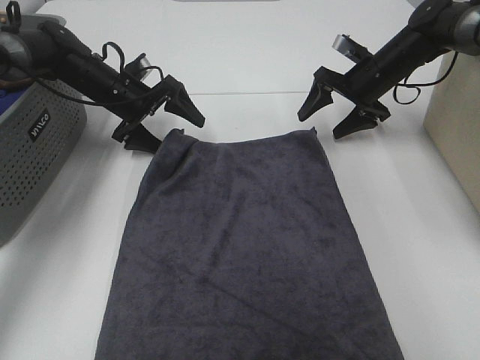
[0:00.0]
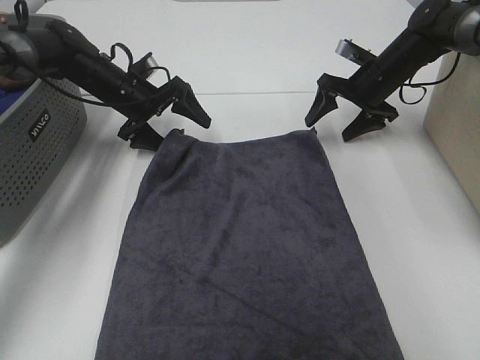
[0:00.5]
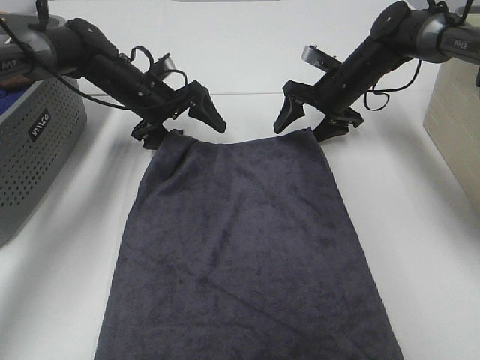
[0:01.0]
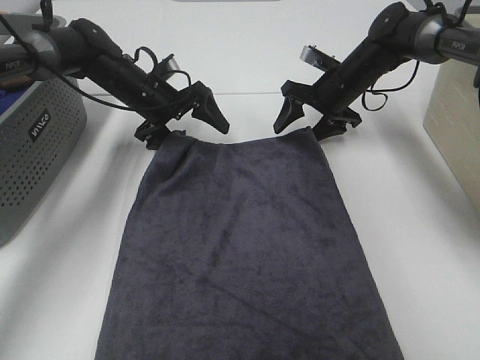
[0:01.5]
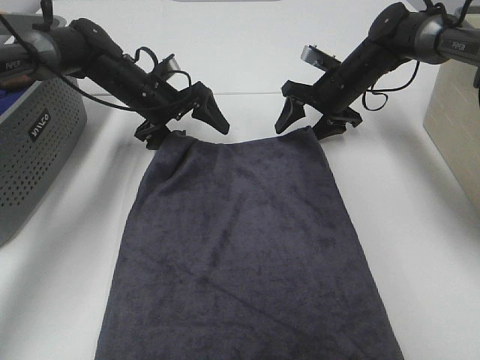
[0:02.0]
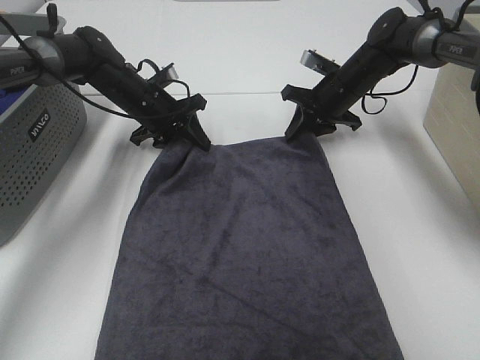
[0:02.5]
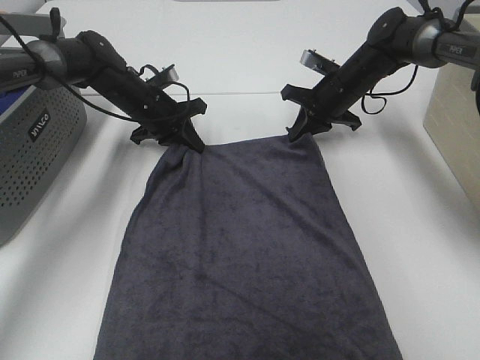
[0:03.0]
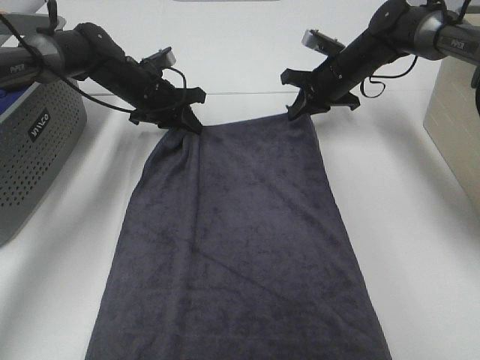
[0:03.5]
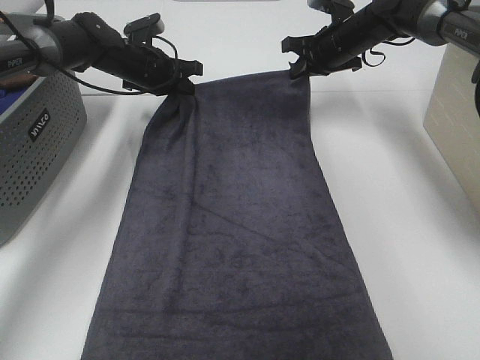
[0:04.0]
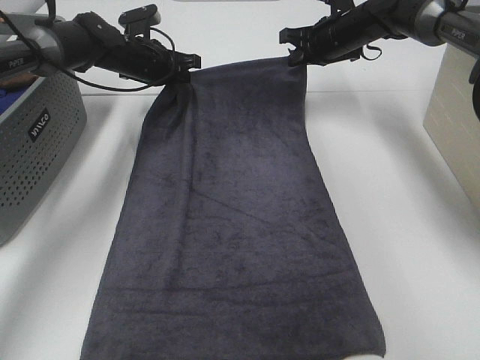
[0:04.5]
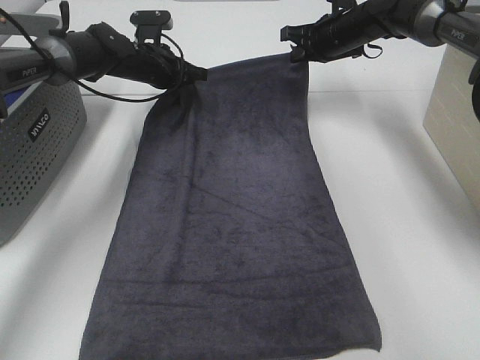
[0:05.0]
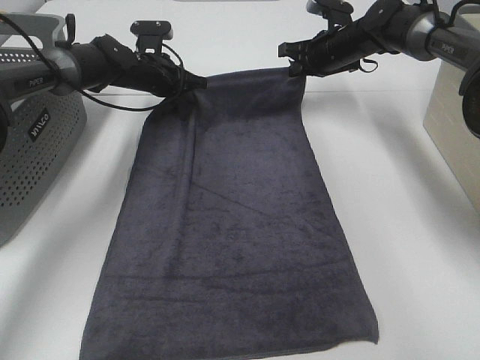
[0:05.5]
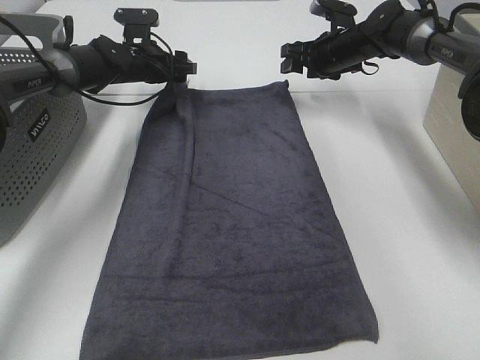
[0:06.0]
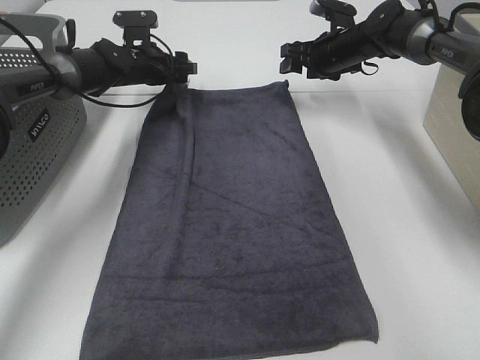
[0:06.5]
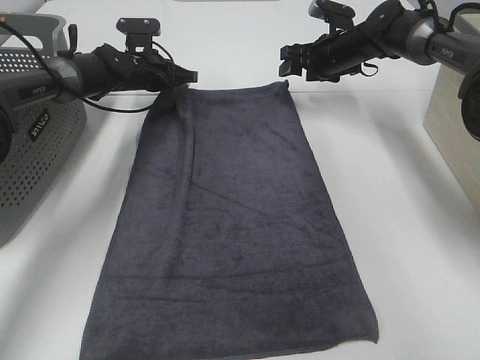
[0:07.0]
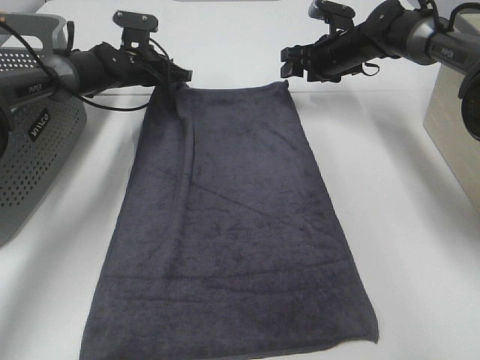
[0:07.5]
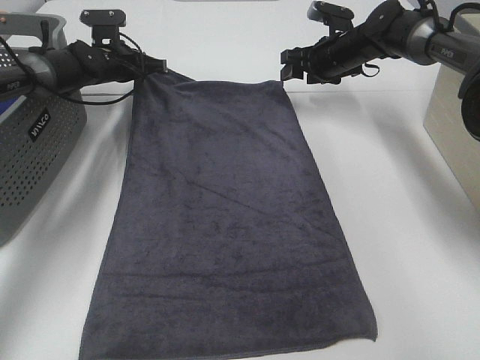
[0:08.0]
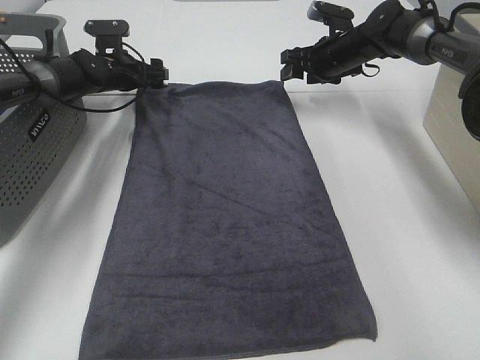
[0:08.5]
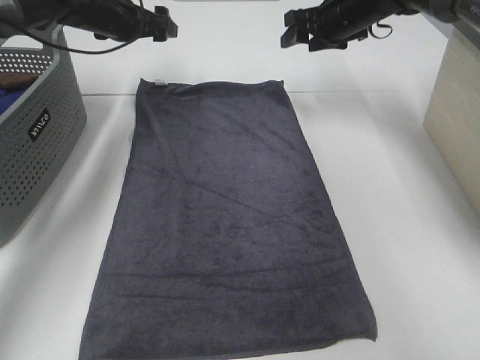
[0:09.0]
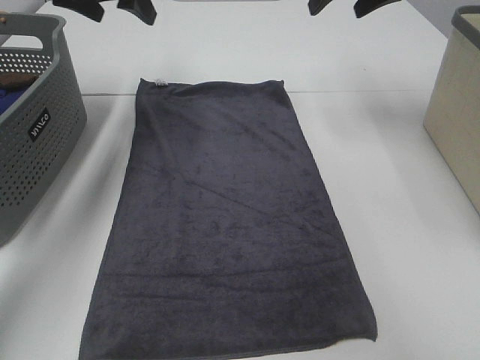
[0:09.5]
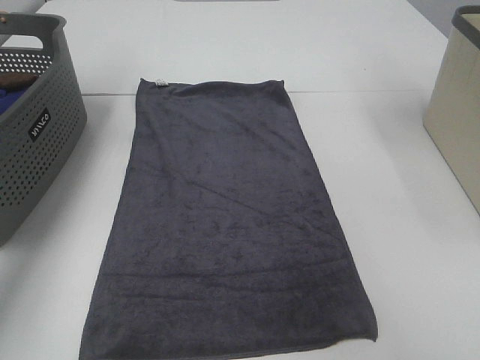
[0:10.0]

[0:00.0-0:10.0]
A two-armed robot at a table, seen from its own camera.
Task of the whole recording: Remove the towel and place it.
0:00.0 to 0:02.0: The right gripper changes place by some 5 cm.
0:02.0 to 0:04.0: The right gripper moves upward, approximately 5 cm, and closes up, while the left gripper shifts about 5 cm forward, and closes up.
0:04.0 to 0:06.0: The right gripper opens up. Meanwhile the left gripper opens up.
0:06.0 to 0:08.0: The left gripper goes about 5 cm to the left, and closes up.
0:08.0 to 0:10.0: Both grippers travel together upward and backward, some 30 cm. The left gripper opens.

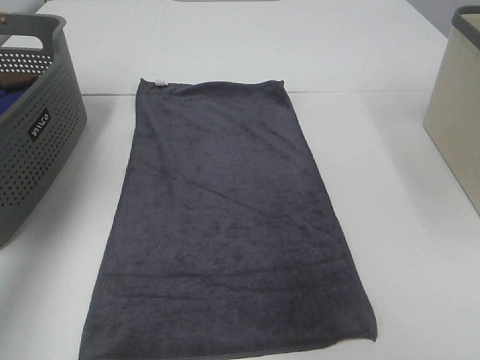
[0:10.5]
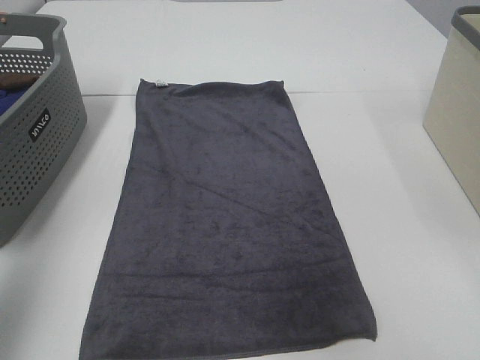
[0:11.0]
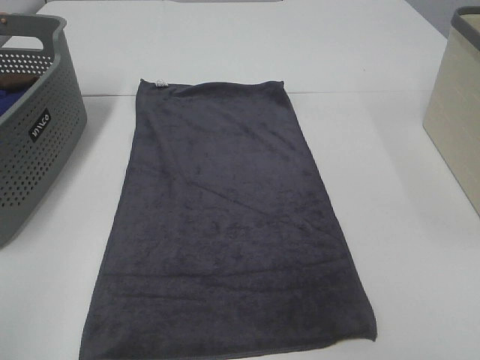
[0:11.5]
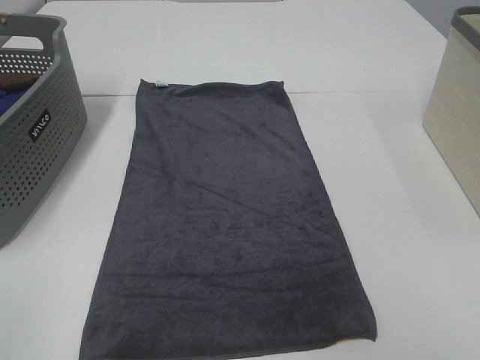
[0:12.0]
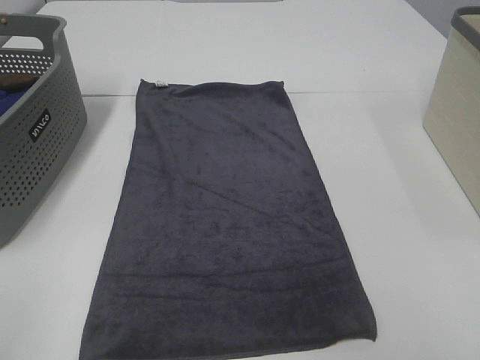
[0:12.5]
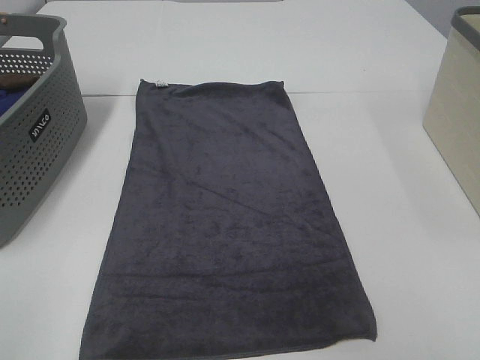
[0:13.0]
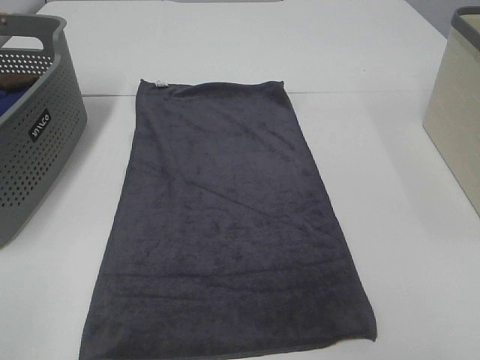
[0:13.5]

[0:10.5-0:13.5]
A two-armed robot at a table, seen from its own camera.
Task of the whole recording: Remove the towel and place it.
0:10.5 to 0:12.0: The left gripper travels backward by some 35 cm.

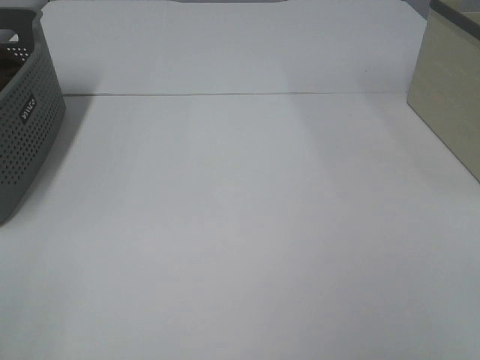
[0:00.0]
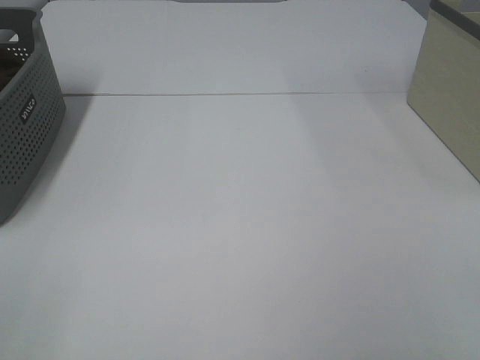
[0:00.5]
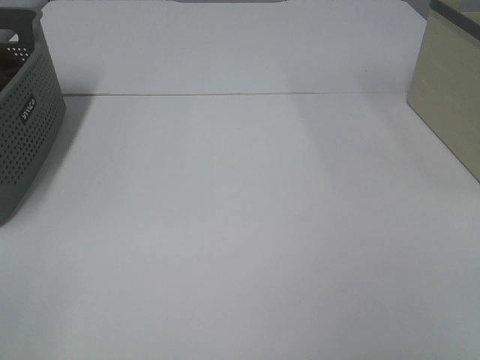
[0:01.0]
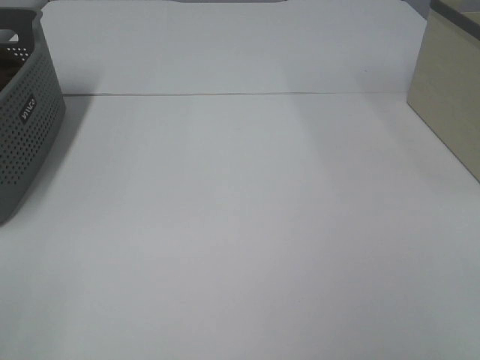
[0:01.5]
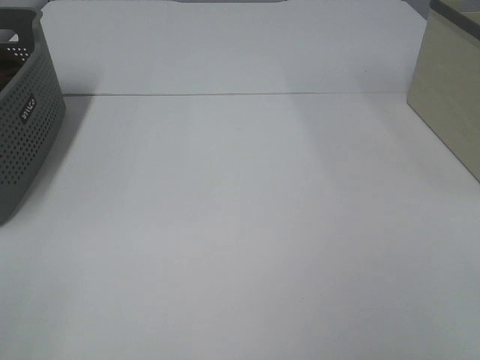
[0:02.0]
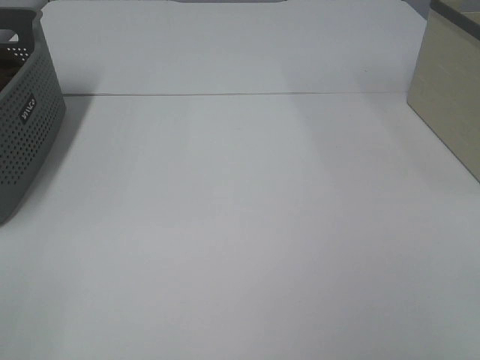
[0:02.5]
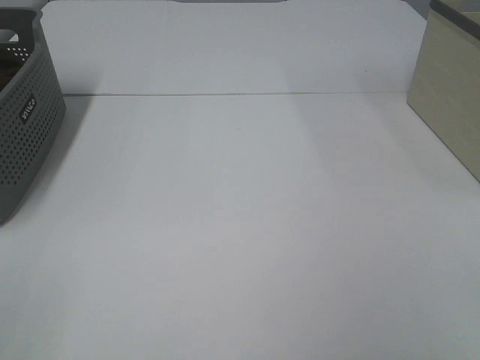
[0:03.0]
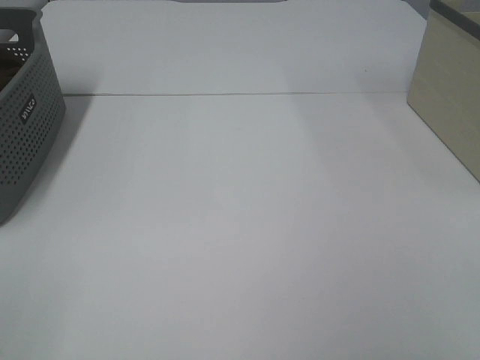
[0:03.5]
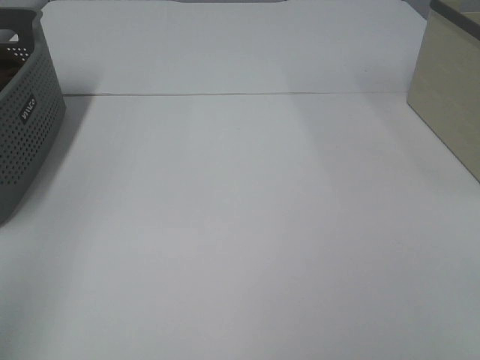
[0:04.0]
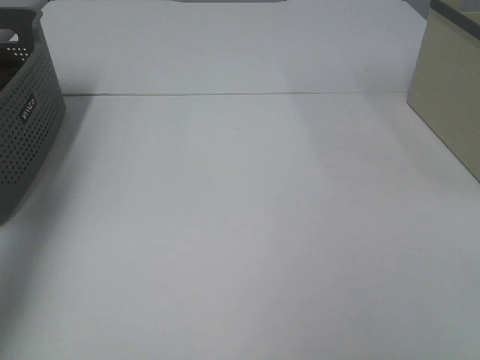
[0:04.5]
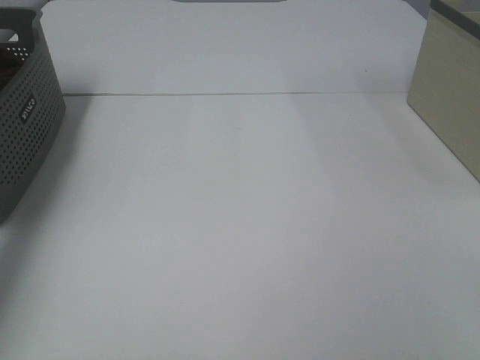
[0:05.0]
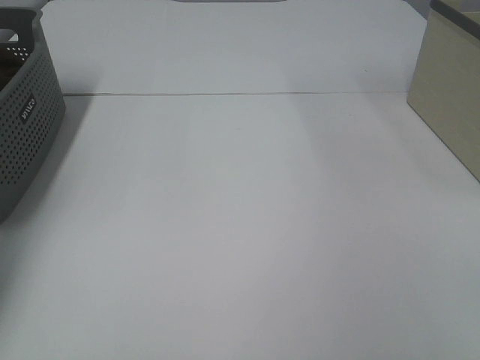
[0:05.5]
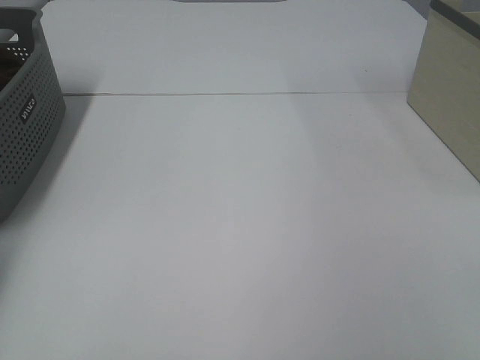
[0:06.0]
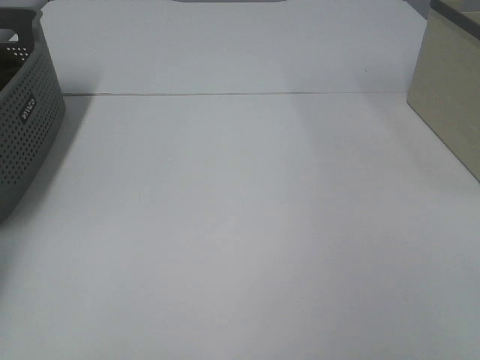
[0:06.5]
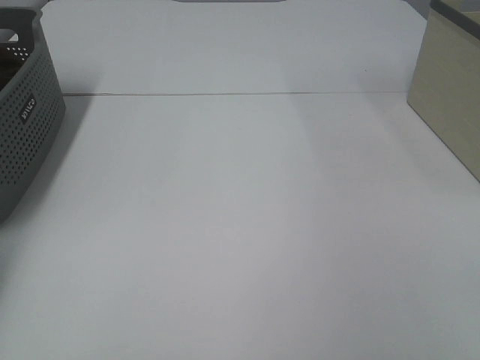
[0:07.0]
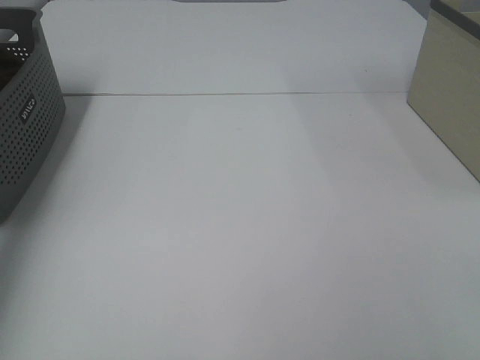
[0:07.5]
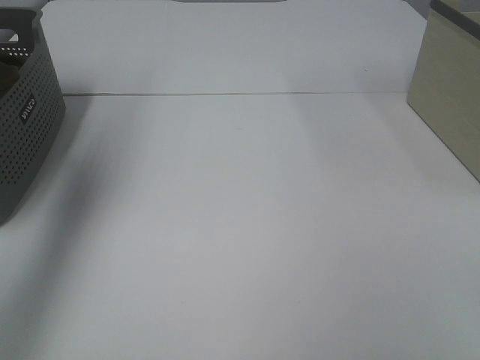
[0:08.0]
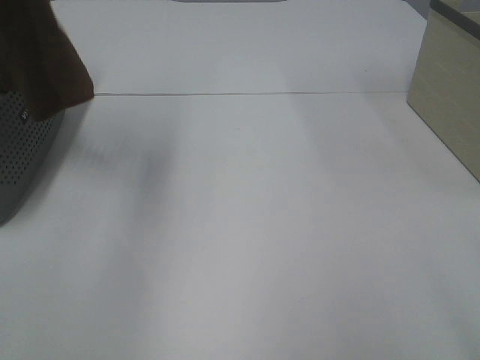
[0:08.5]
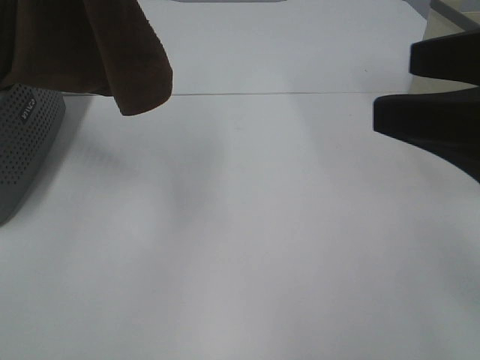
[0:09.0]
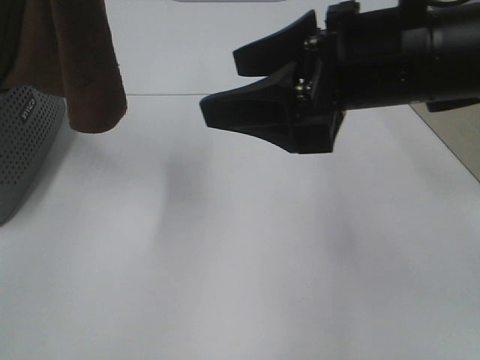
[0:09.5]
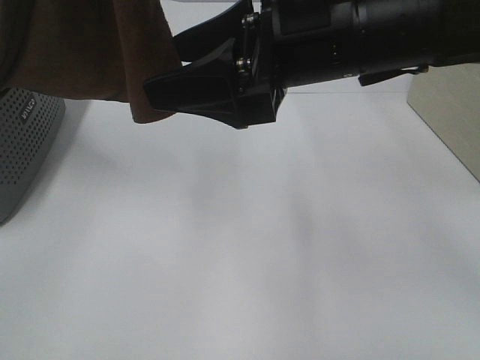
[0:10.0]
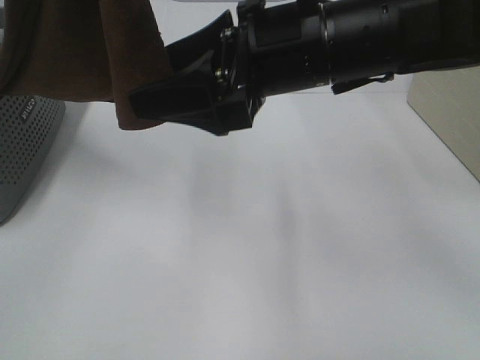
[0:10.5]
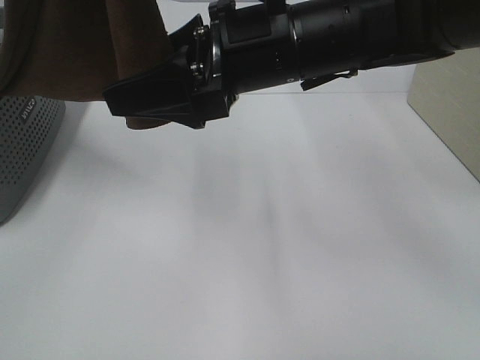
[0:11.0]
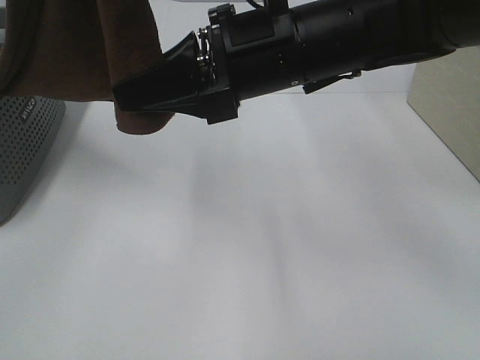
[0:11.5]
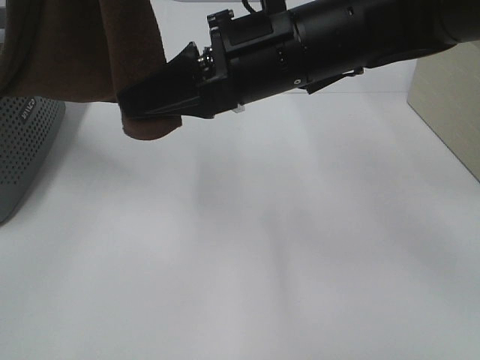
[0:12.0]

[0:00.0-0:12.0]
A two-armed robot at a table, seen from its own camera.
Task of the whole recording: Remove the towel and place it.
0:00.0 to 0:02.0: Both grippers stay about where they are.
0:04.0 to 0:06.0: The left gripper heads forward and downward, covering roughly 40 cm.
0:06.0 to 0:08.0: The left gripper shifts roughly 35 cm upward, to the right and backward, and closes up.
0:08.0 to 0:10.0: The right gripper goes roughly 35 cm forward and to the left; the left gripper moves to the right and backward, some 20 cm.
0:10.0 to 0:12.0: The right gripper closes.
